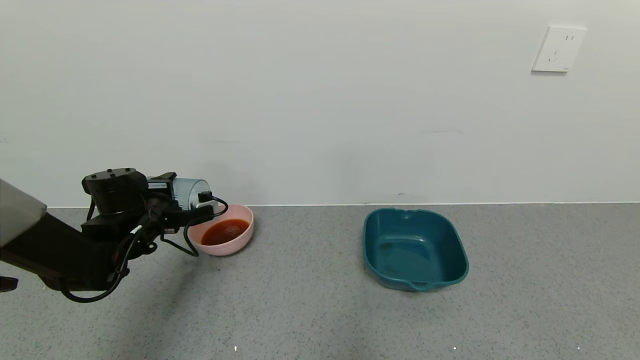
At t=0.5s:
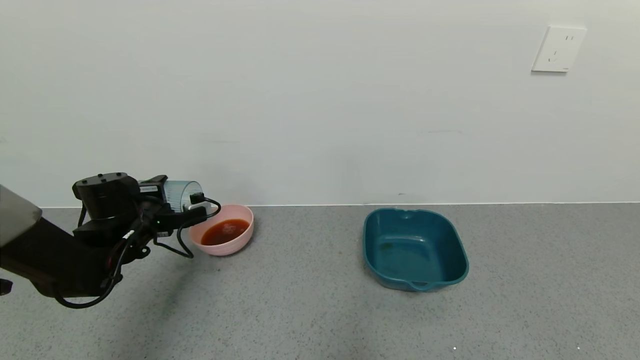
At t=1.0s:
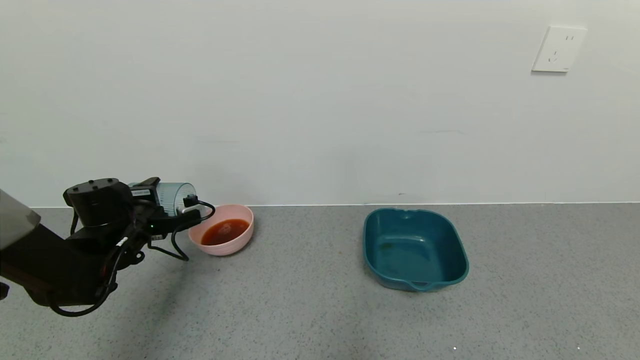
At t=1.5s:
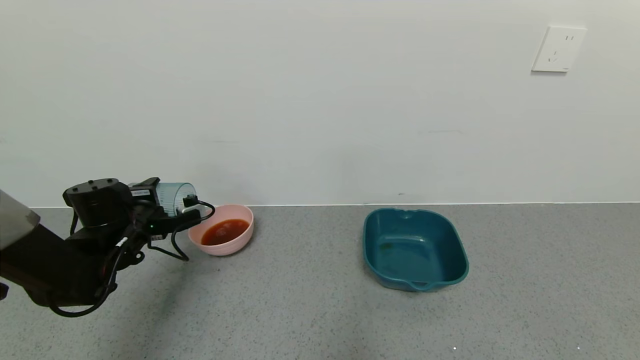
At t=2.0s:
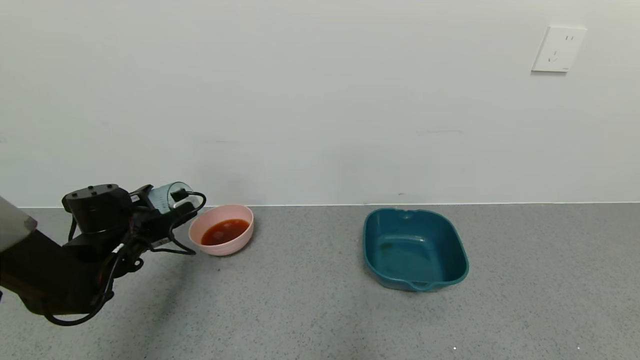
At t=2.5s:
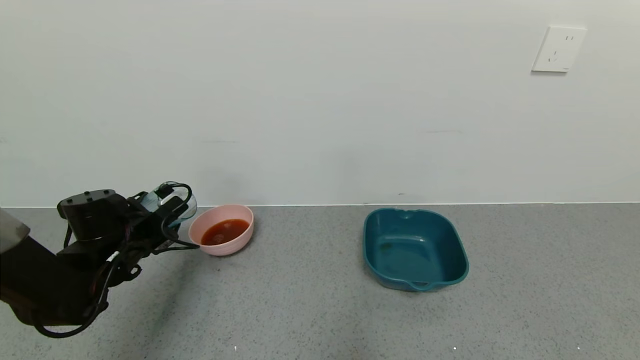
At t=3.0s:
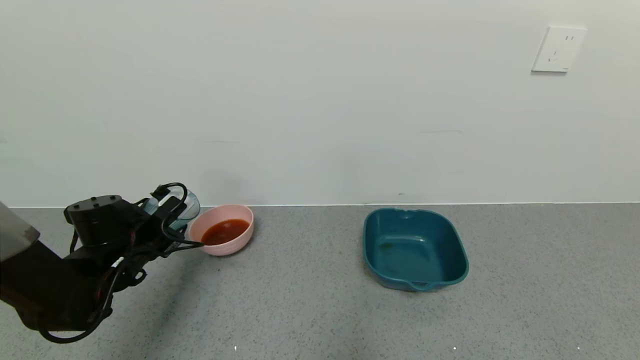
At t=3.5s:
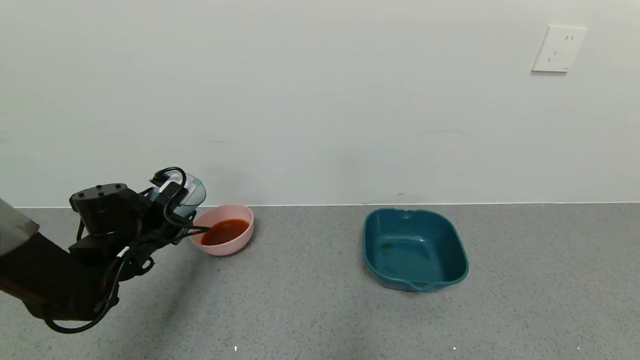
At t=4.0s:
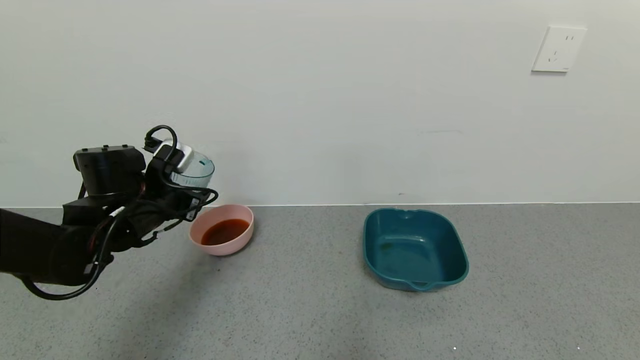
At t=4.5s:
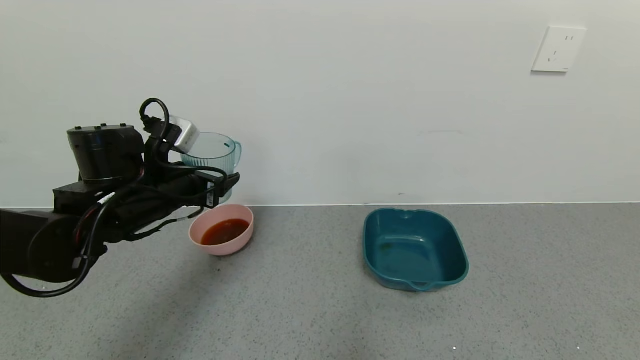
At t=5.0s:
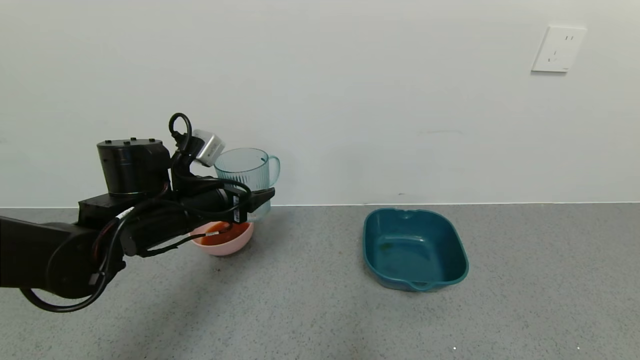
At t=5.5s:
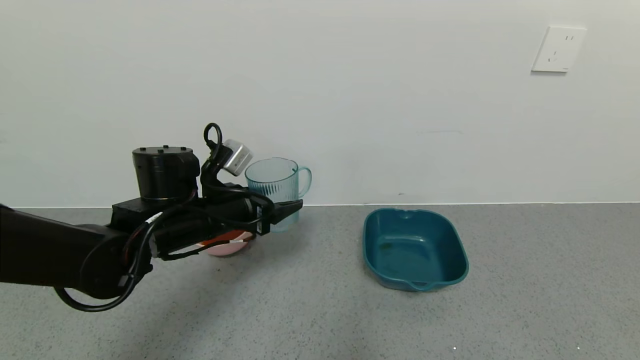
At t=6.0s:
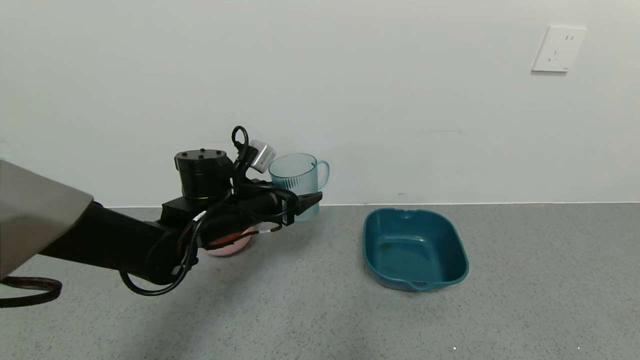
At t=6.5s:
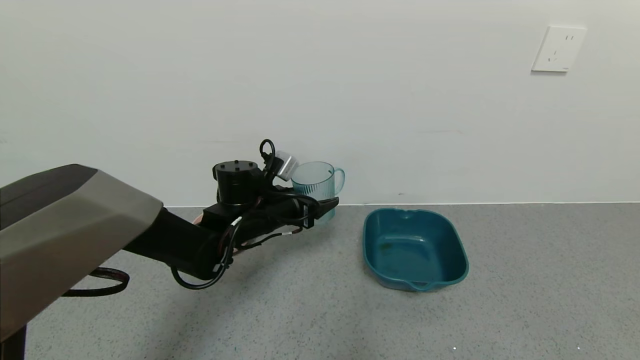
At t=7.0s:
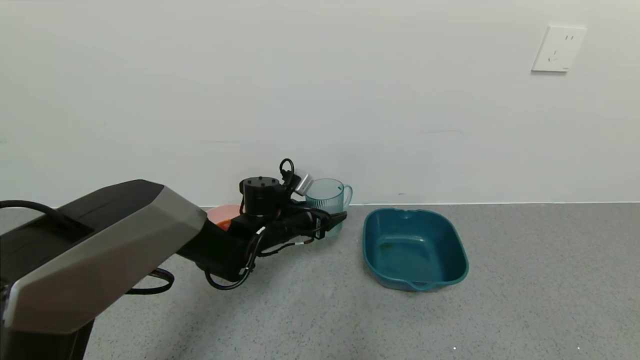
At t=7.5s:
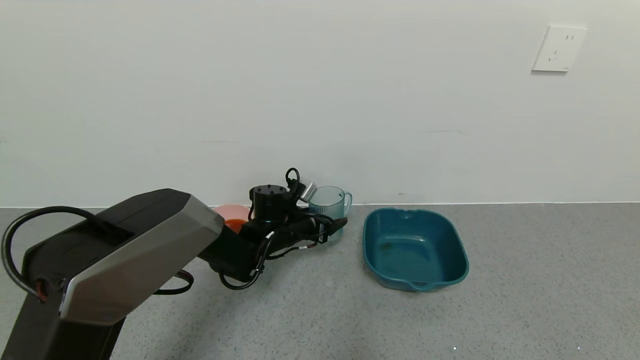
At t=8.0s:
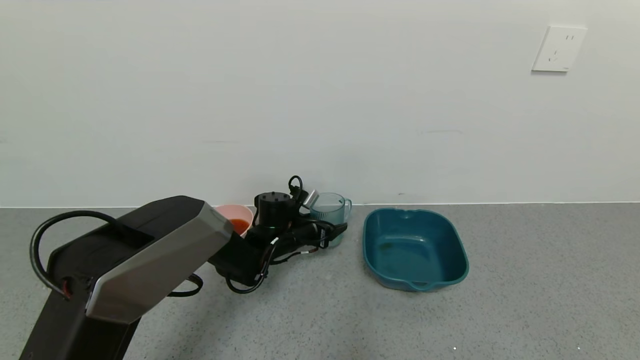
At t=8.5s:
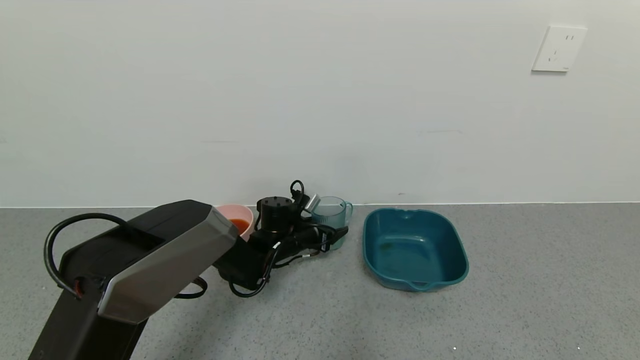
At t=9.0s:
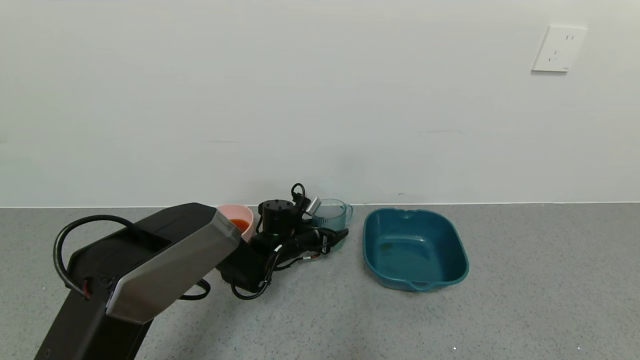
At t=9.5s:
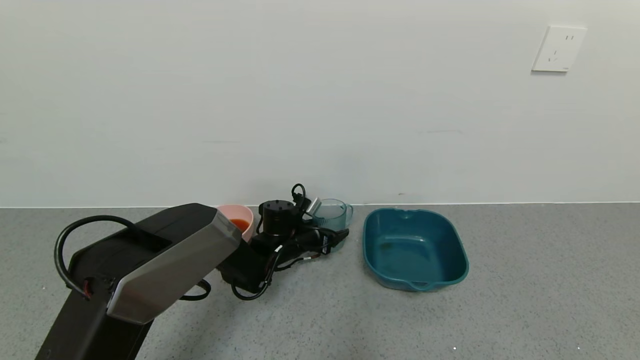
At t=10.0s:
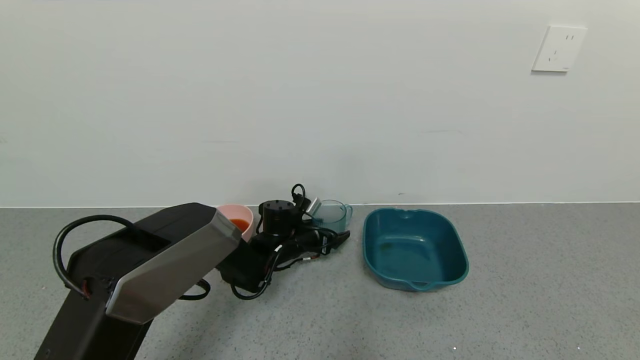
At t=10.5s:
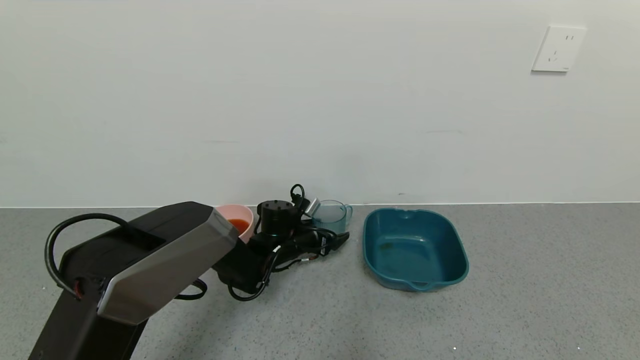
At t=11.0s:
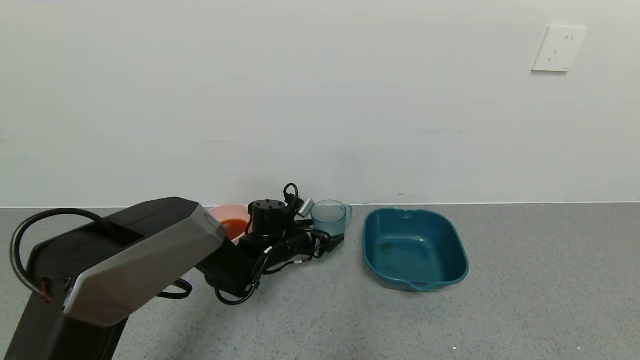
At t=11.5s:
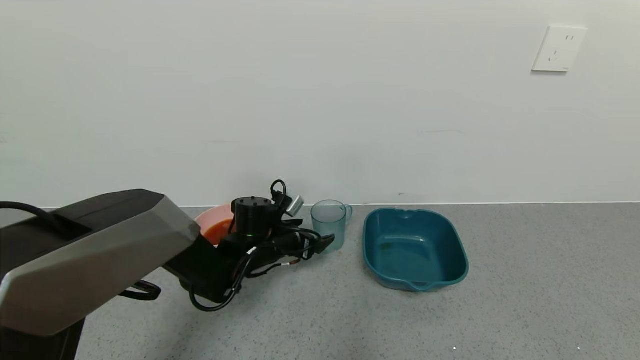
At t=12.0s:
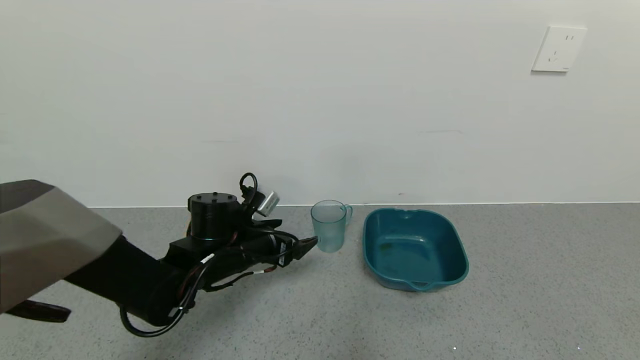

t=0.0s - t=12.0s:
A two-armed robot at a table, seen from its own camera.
Task of the whole recording: use a gripper to pick up the cup and pour the liquid into a bowl or tray.
Step, t=0.0s - t=9.5s: Place blue cup with tea on the table with left gripper.
t=2.0s - t=4.0s: The left gripper heads upward and to the right, covering some 10 cm.
t=4.0s - t=6.0s: The left gripper goes some 10 cm to the right.
t=6.0s - t=8.0s: The left gripper moves downward and forward, roughly 15 cm.
t=8.0s - t=10.0s: The left gripper opens up.
t=10.0s - t=12.0s: The left gripper heads backward, upward and to the left, covering roughly 15 cm.

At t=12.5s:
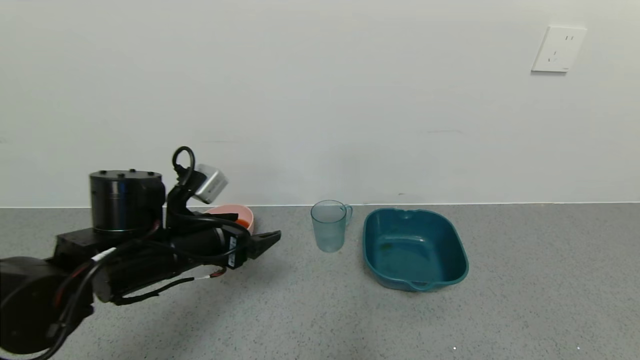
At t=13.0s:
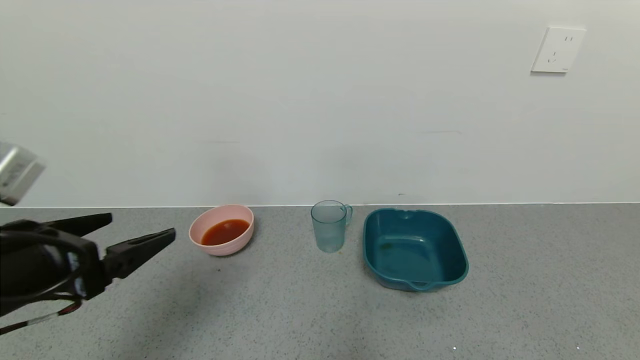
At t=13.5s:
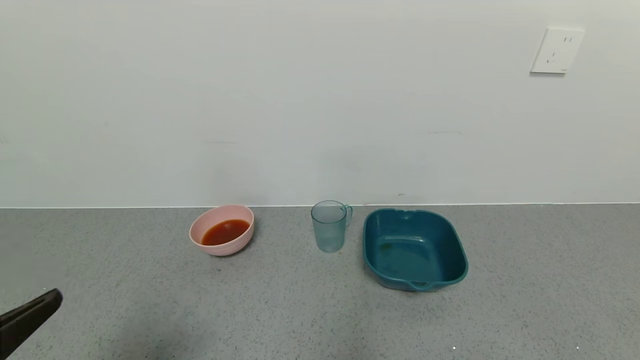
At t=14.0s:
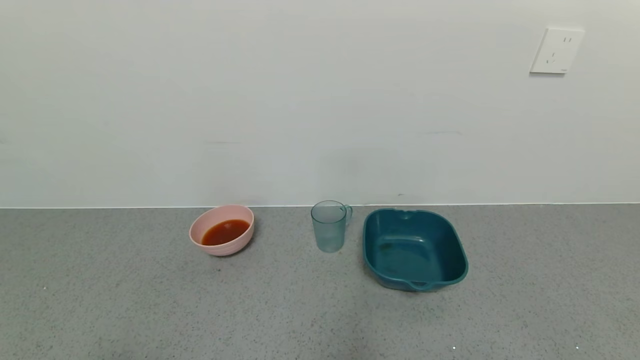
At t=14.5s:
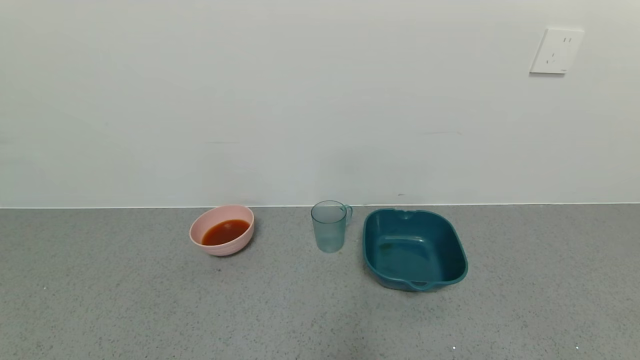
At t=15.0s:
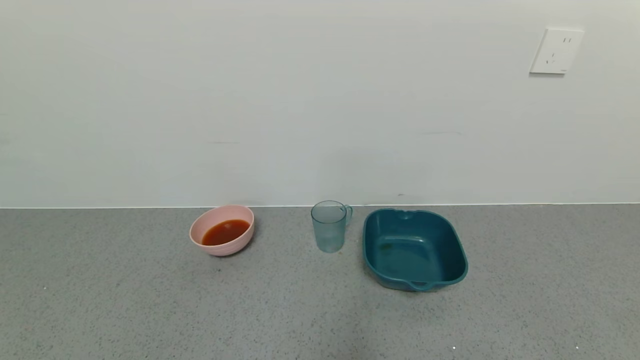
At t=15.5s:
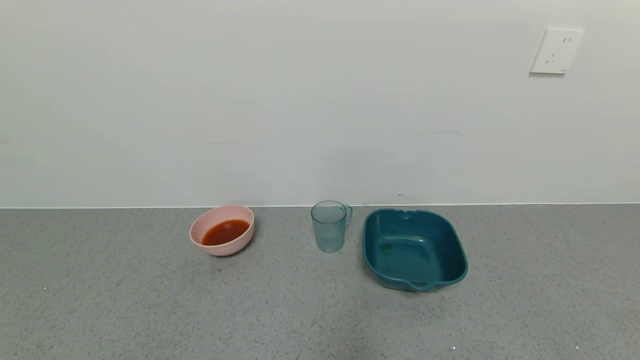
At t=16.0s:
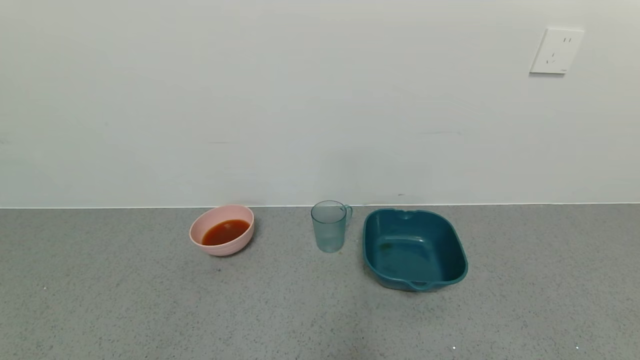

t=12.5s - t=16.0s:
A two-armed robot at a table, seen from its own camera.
Task of the whole recording: use a gripper to pick up the cup and pour the liquid into a bowl or tray.
t=12.5s - t=14.5s: The left gripper heads backward, covering about 35 cm.
